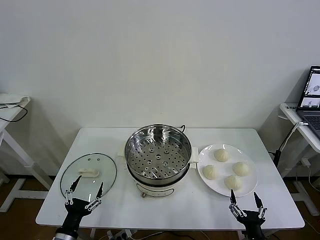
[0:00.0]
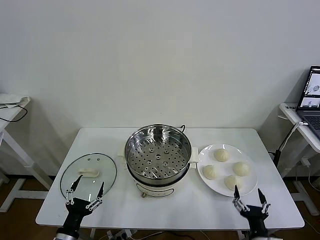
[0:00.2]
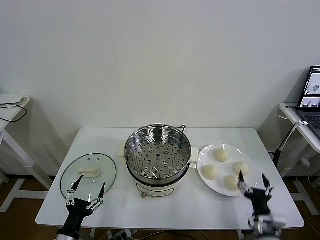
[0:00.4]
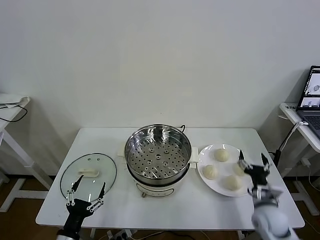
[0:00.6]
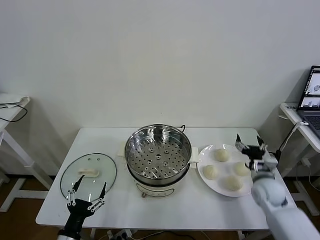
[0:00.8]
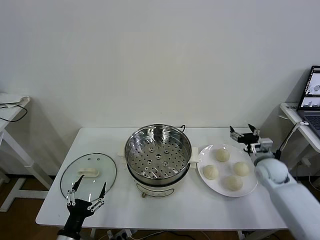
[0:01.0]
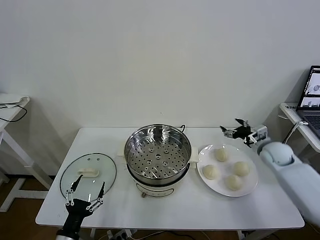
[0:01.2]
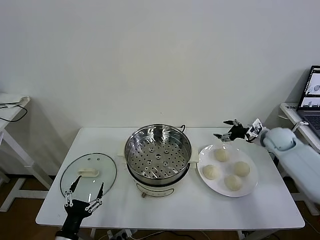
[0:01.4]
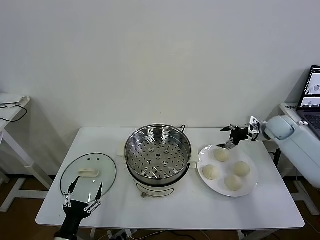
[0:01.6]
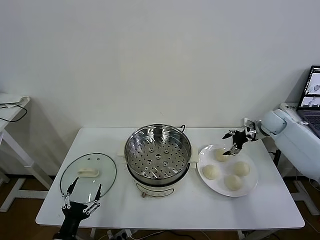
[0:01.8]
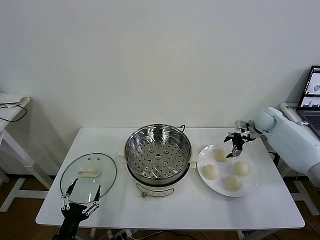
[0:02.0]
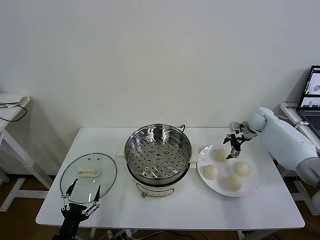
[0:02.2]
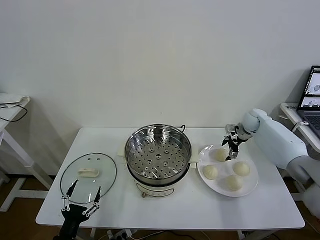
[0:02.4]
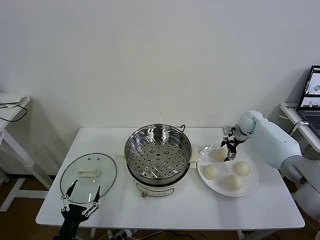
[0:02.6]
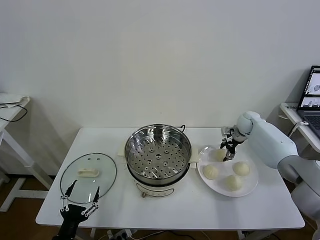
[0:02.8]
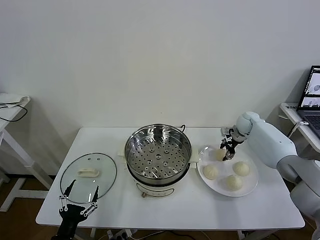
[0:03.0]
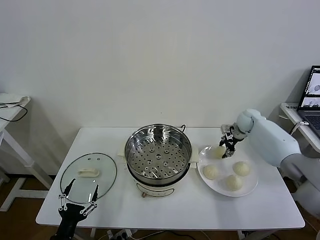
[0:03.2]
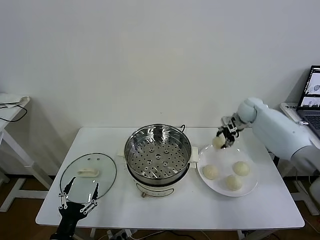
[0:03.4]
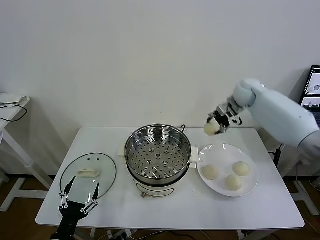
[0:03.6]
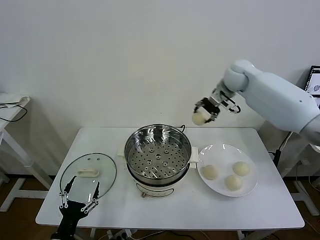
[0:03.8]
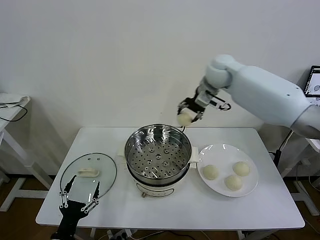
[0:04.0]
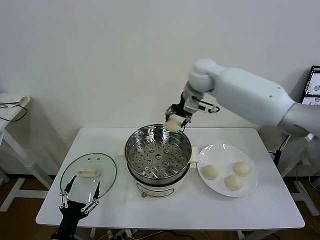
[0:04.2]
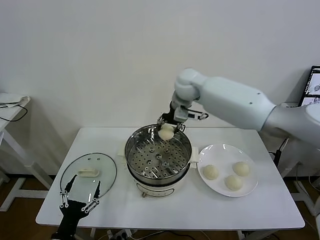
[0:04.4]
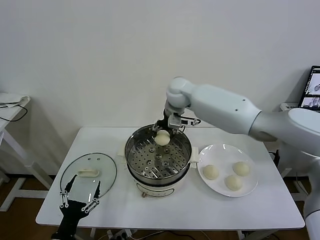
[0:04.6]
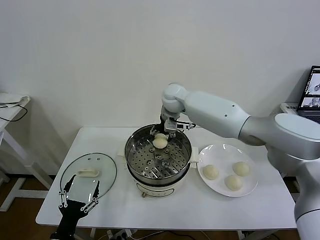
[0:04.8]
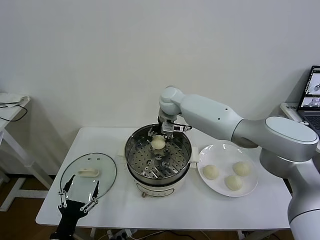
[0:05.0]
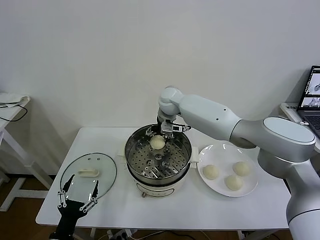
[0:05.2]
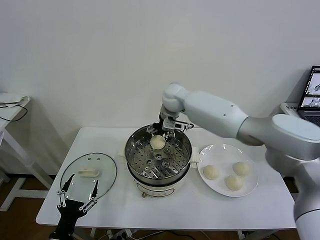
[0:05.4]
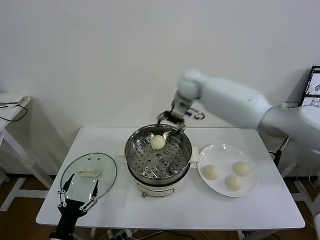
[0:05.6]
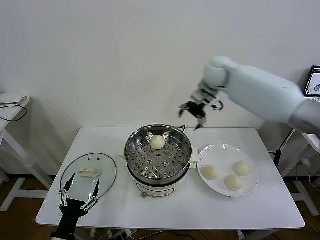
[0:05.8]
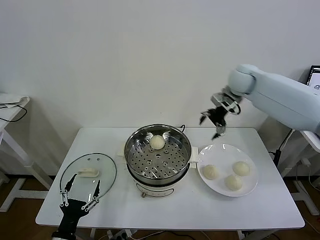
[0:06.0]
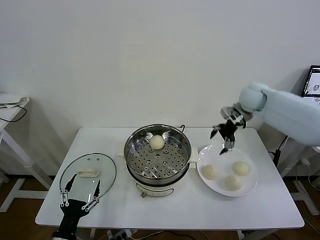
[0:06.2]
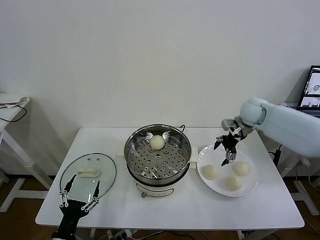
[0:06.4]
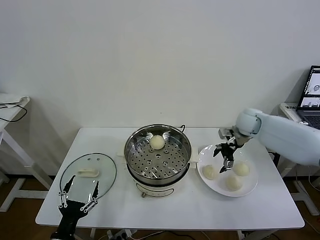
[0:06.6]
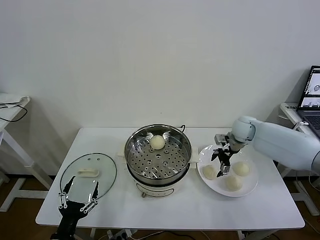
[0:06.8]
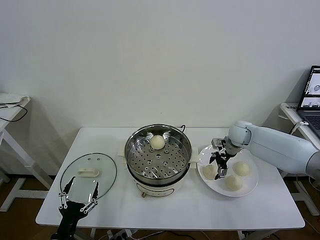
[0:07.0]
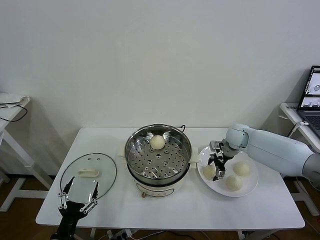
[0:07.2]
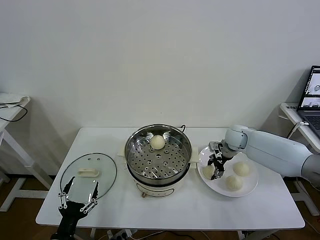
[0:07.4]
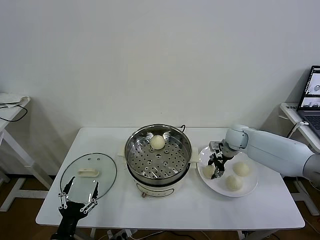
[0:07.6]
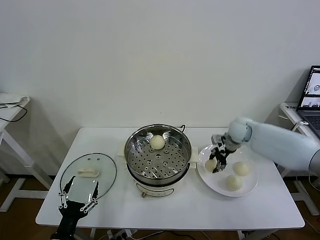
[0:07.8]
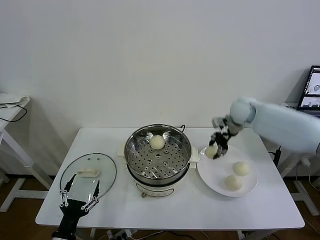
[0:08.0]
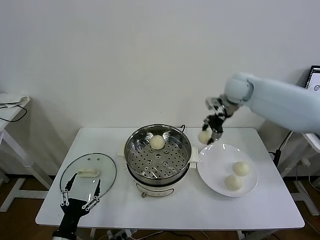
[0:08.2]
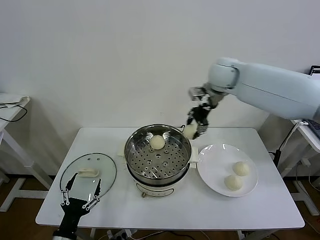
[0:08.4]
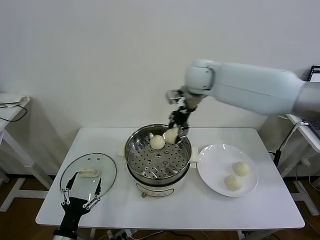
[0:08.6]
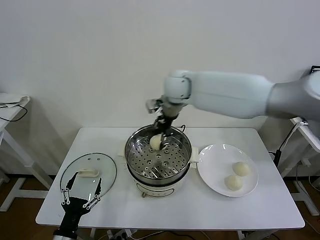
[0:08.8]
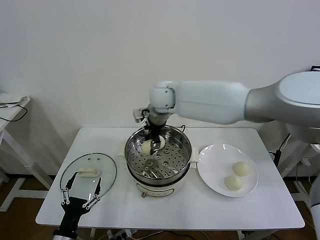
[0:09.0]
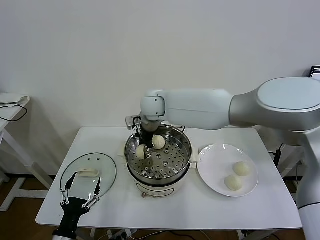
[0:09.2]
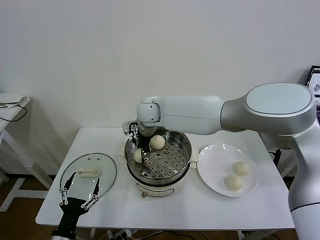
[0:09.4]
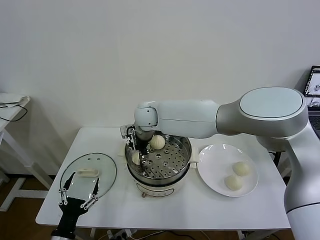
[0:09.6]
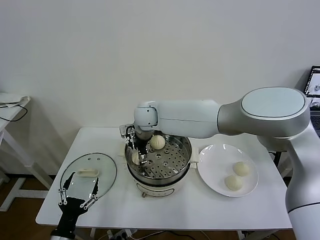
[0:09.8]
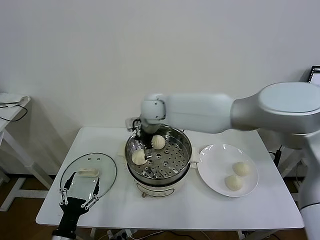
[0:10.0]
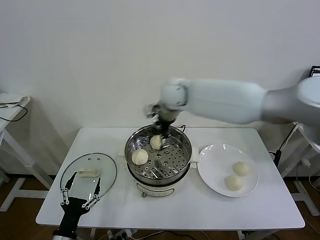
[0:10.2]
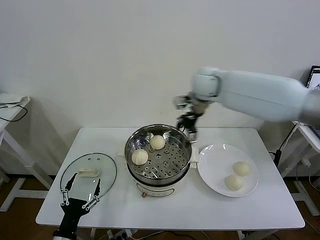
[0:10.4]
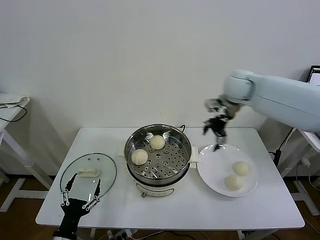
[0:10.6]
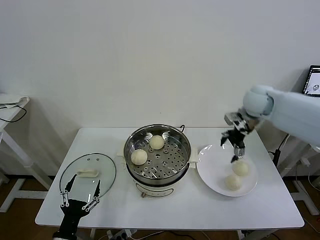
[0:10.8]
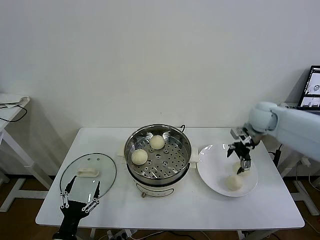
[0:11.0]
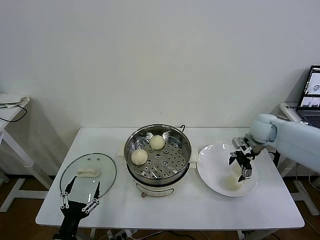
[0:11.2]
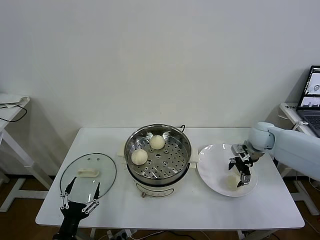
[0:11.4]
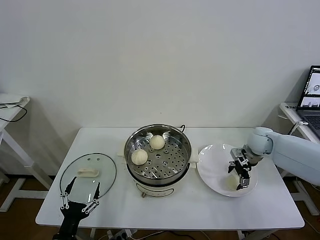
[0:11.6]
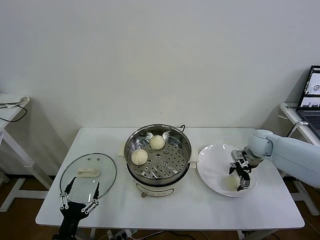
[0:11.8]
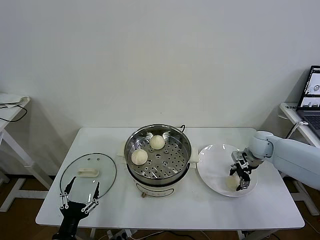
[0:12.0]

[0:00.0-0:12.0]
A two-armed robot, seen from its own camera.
Task of the whole recording: take steamed baozi put them in steamer then cover it.
Step, 0:00.0 to 0:03.0: Grasp the baozi in the plate with right gripper.
Step, 0:03.2 to 0:05.2: Place the baozi on the steamer with right gripper.
Step, 0:05.4 to 0:07.4: Grasp the baozi in the plate with right gripper.
Step, 0:07.6 to 0:09.8: Place the baozi on the steamer with right gripper.
0:01.6 to 0:03.0: The right gripper moves to the left, forward and downward, some 10 cm, and closes.
0:03.0 to 0:04.4: The right gripper shifts approximately 35 cm to the left and upward.
0:04.4 to 0:06.0: The right gripper goes roughly 20 cm to the right, and opens its fingers.
0:06.0 to 0:07.6: The right gripper is displaced downward by some 20 cm, and closes.
0:07.6 to 0:09.0: The right gripper travels to the left and upward by roughly 35 cm.
0:09.0 to 0:10.4: The right gripper shifts some 20 cm to the right, and opens.
0:10.4 to 0:12.0: The right gripper moves downward and to the right, approximately 30 cm, and closes its fingers.

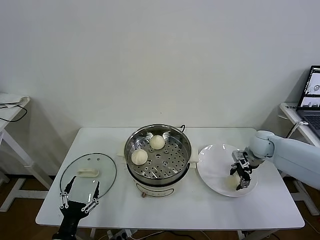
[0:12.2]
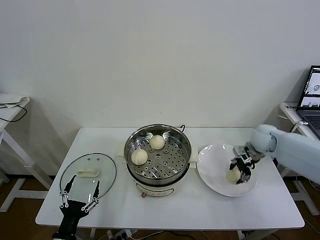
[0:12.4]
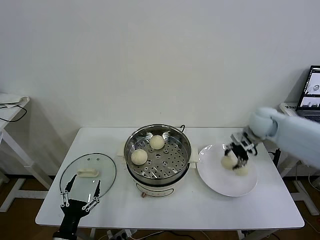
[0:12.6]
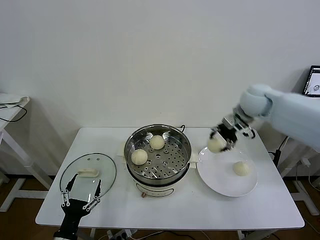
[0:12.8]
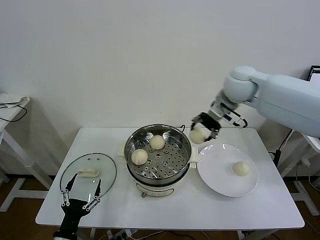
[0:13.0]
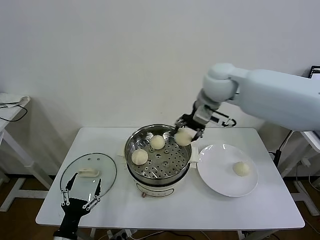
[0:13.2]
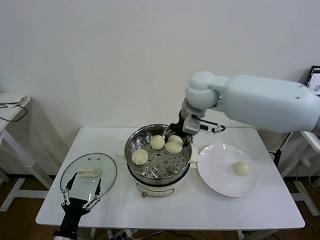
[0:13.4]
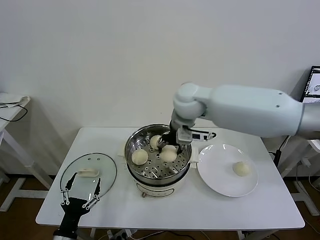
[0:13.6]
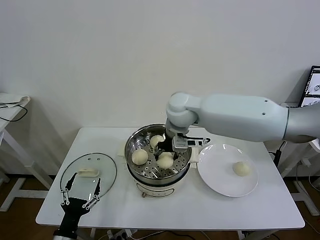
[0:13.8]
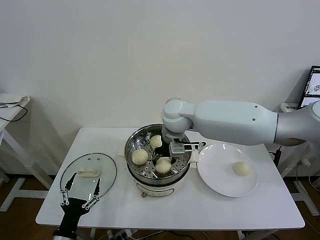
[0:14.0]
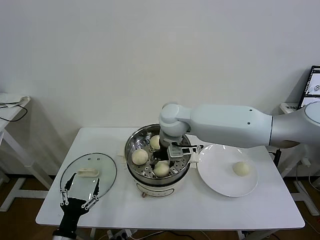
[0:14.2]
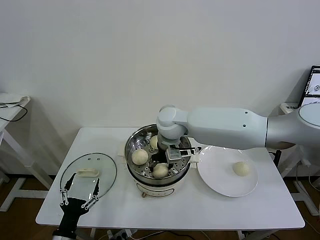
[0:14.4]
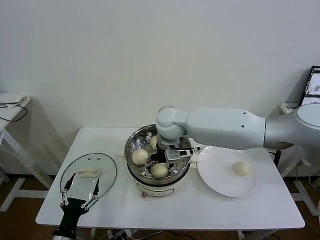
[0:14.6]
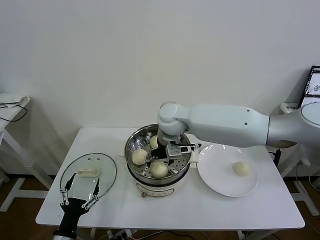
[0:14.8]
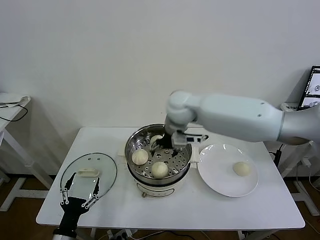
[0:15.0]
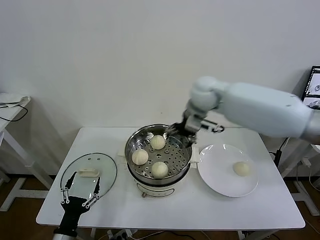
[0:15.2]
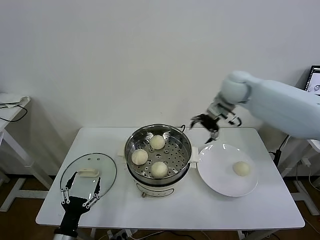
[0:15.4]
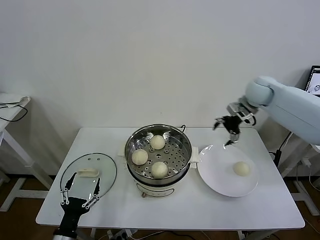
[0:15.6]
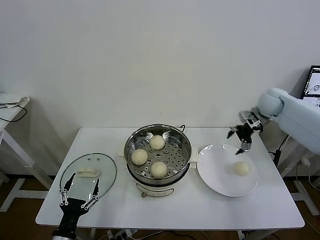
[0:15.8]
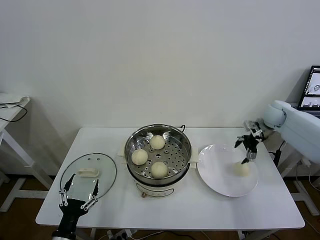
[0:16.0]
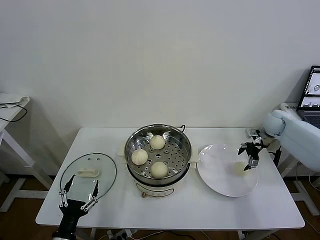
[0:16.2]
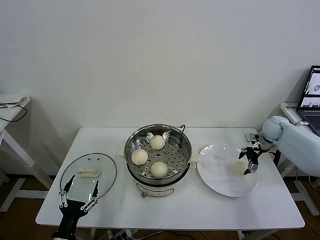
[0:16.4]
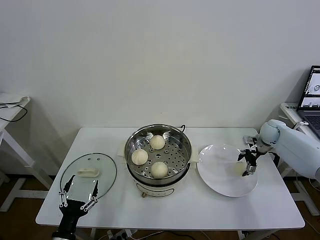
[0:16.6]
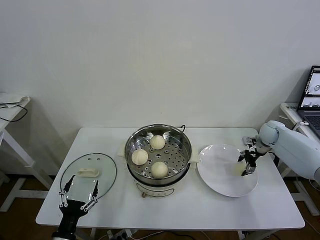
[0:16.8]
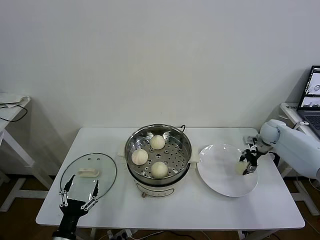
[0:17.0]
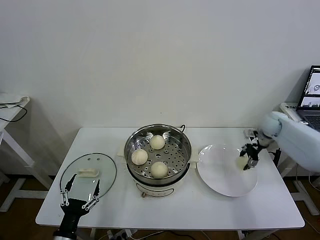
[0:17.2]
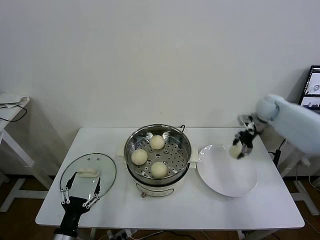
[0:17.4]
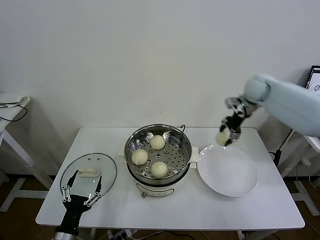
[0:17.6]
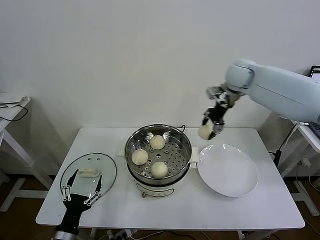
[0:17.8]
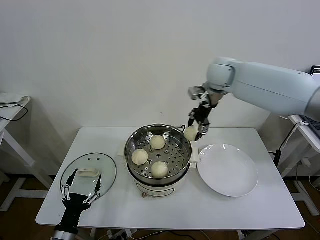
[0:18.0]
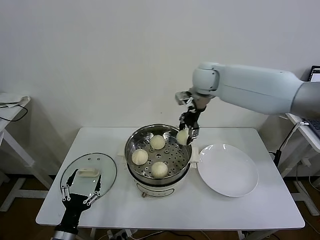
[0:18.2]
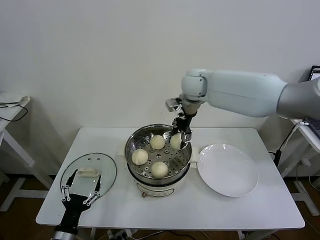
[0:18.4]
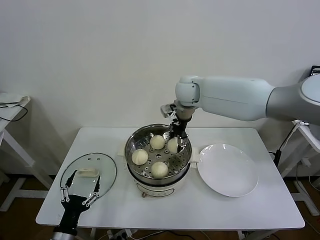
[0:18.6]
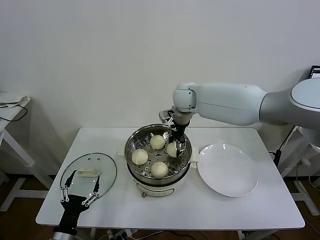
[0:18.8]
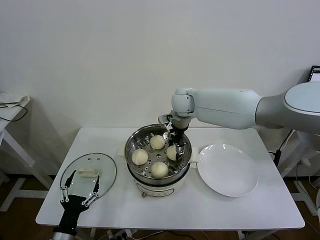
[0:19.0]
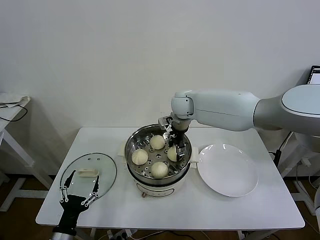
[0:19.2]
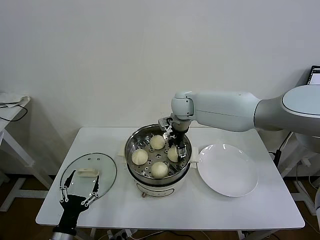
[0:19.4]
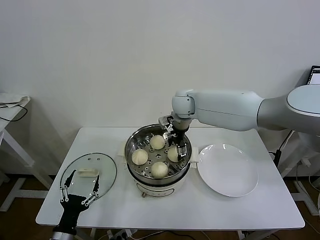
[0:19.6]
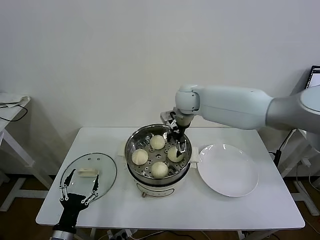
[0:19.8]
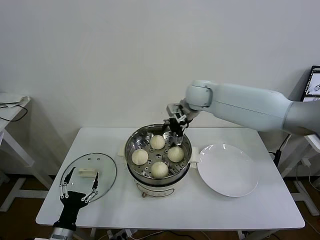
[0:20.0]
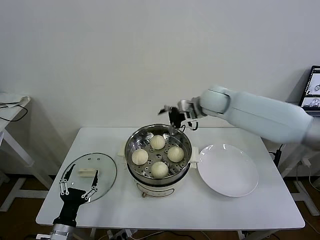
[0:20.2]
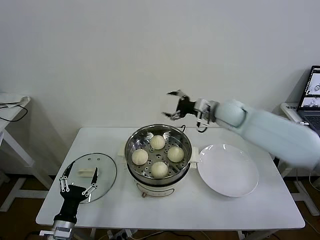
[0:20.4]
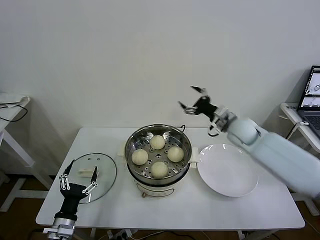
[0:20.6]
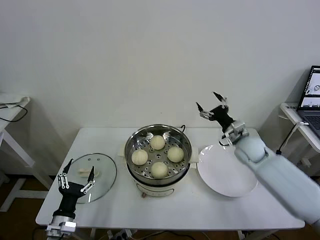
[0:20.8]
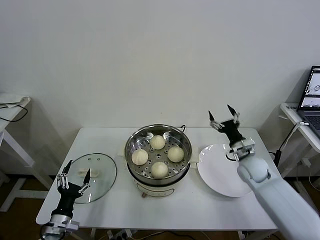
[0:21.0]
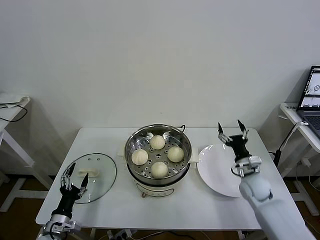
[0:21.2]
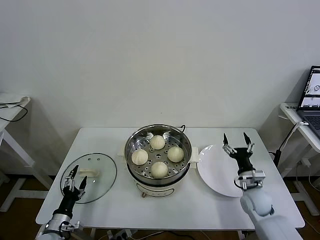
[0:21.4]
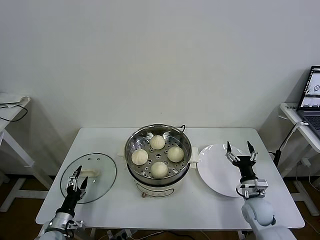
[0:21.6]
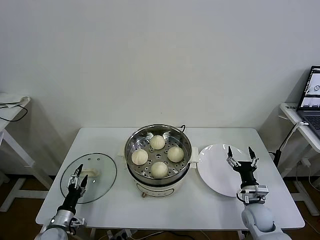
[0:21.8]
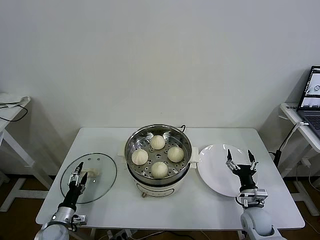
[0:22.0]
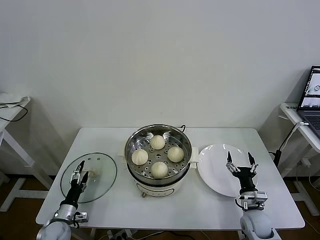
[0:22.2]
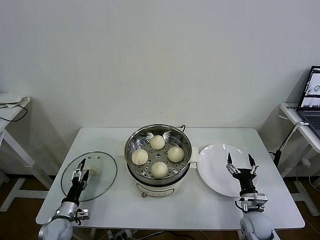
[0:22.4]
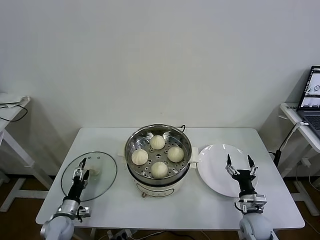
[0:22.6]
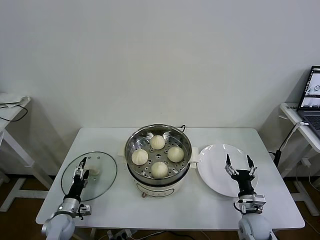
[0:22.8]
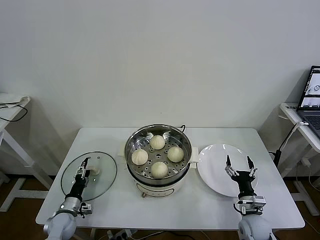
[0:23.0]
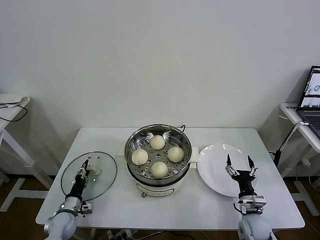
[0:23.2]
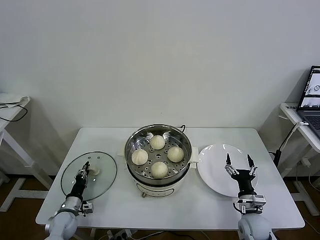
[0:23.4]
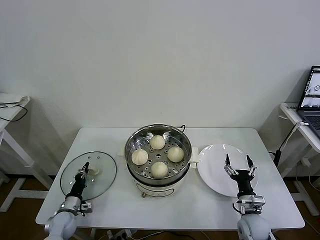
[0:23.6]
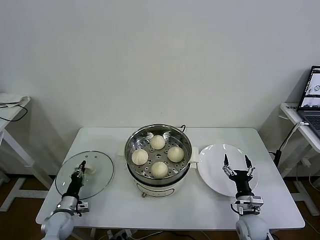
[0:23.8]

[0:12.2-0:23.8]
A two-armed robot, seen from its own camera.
Task of the whole recording: take steamed baozi put them in steamer then cover it.
Step, 0:12.4 to 0:14.6: Place the baozi on the steamer with right gripper.
Step, 0:14.8 to 0:17.0: Grasp the baozi in the plate with right gripper.
Step, 0:17.2 to 0:19.6: Place the baozi on the steamer with right gripper.
Step, 0:19.8 to 0:23.8: Grasp the pot lid with left gripper.
0:12.2 to 0:13.6: The right gripper heads to the left and upward, covering about 35 cm.
0:13.6 to 0:15.0: The right gripper opens.
0:15.0 to 0:16.6: The right gripper is displaced to the right and downward by roughly 40 cm.
0:16.6 to 0:18.0: The right gripper shifts approximately 35 cm to the left and upward, and closes up.
0:18.0 to 0:19.4: The right gripper goes some 15 cm downward and to the left, and opens.
0:19.4 to 0:21.0: The right gripper shifts approximately 35 cm to the right, downward and backward; the left gripper shifts about 5 cm forward.
0:21.0 to 0:22.4: The left gripper travels downward and forward by about 10 cm. The right gripper goes approximately 20 cm backward and downward.
0:22.4 to 0:23.8: The left gripper closes up.
